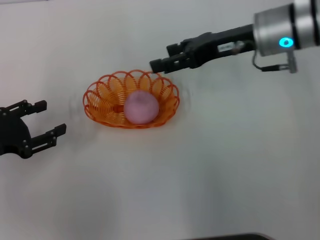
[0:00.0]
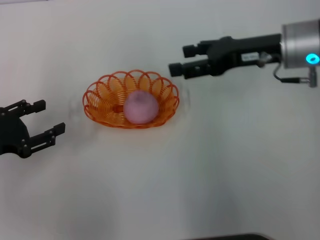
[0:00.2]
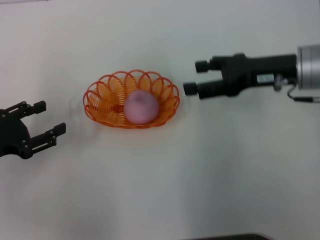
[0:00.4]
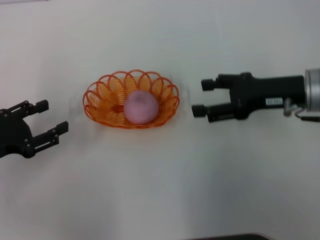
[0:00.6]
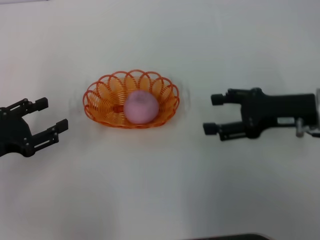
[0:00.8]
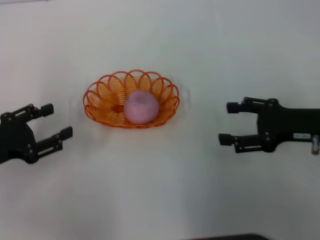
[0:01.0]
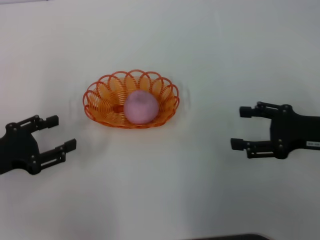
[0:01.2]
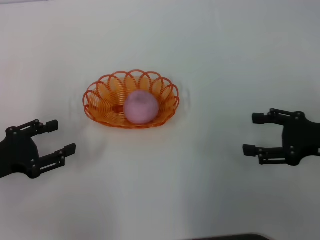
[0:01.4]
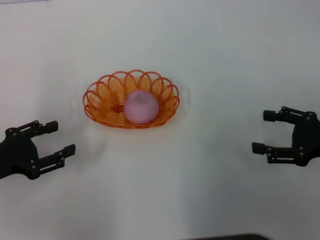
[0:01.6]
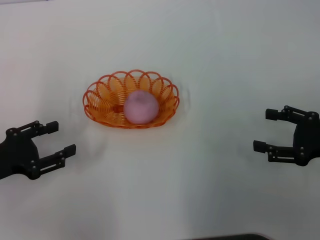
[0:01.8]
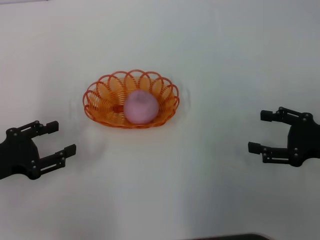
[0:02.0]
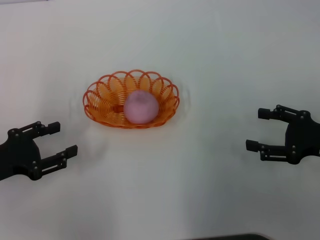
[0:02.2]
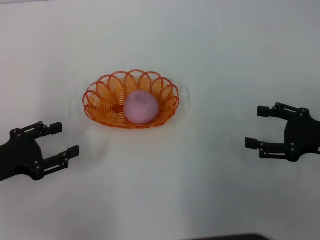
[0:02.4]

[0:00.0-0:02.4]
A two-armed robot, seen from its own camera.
0:00.0 to 0:01.2: The right gripper goes approximately 20 cm backward, to the right and downward.
0:01.2 to 0:02.4: The grippers stay close to where they were, moving slightly.

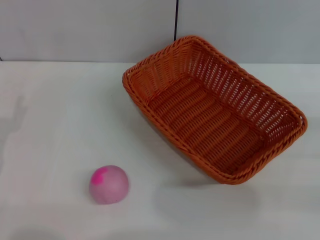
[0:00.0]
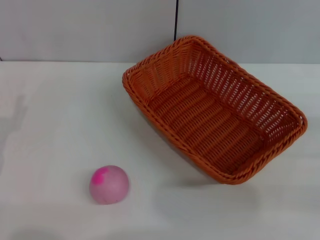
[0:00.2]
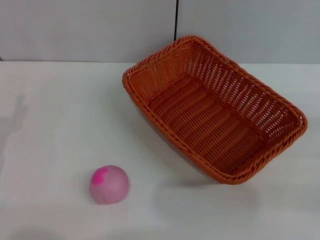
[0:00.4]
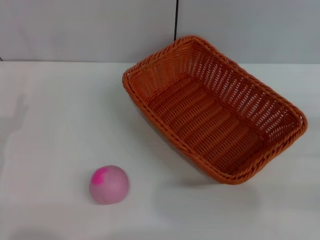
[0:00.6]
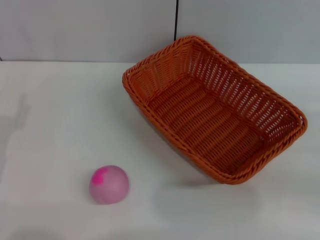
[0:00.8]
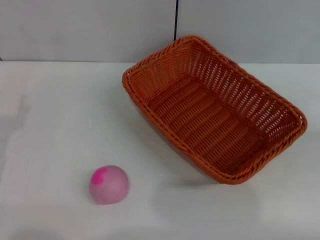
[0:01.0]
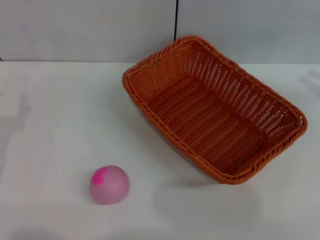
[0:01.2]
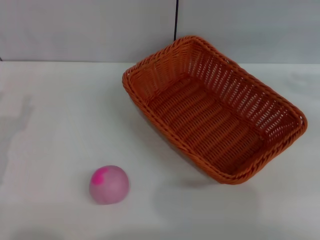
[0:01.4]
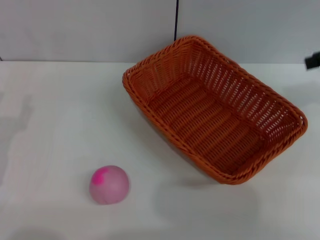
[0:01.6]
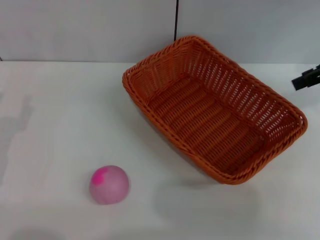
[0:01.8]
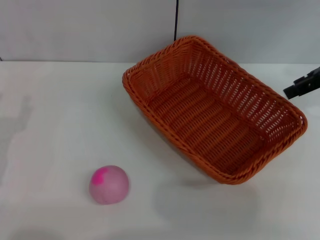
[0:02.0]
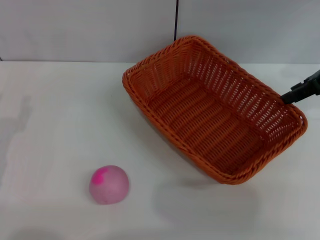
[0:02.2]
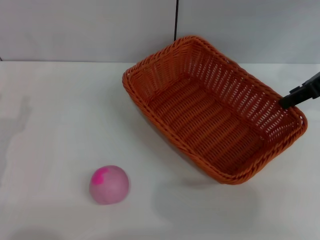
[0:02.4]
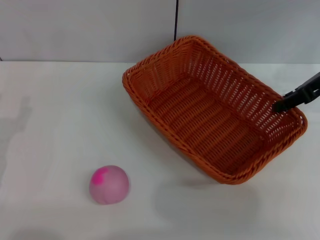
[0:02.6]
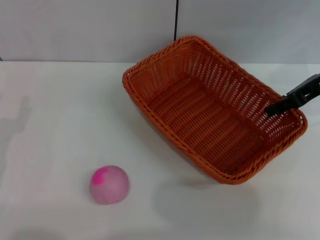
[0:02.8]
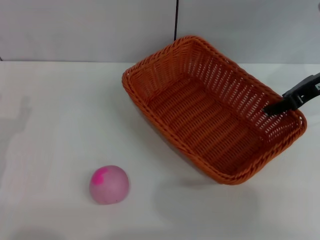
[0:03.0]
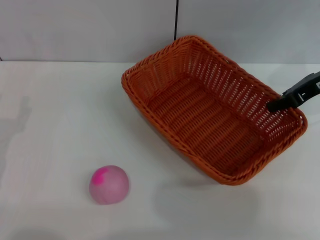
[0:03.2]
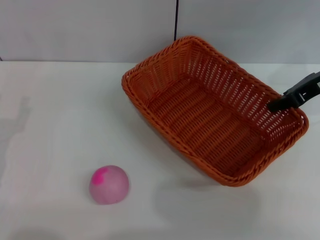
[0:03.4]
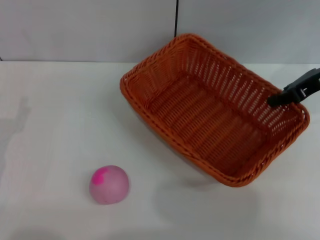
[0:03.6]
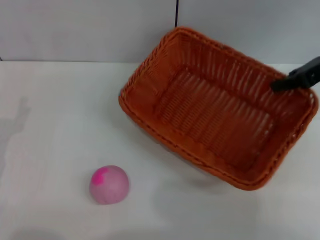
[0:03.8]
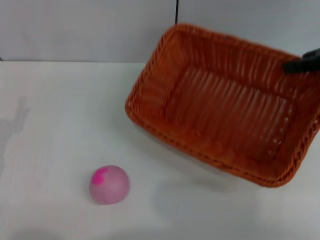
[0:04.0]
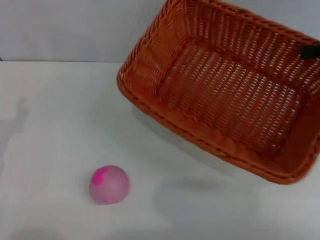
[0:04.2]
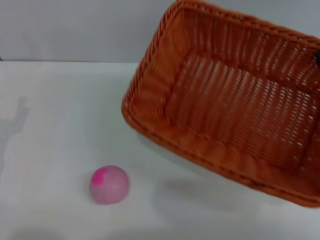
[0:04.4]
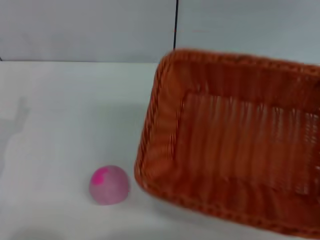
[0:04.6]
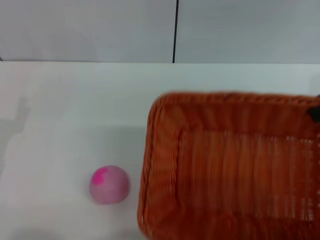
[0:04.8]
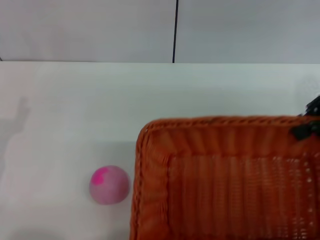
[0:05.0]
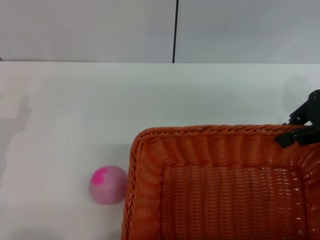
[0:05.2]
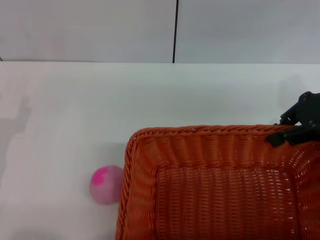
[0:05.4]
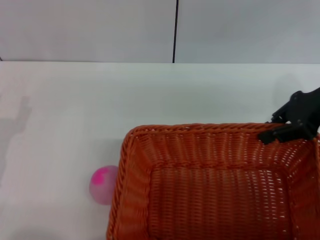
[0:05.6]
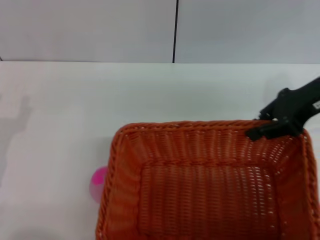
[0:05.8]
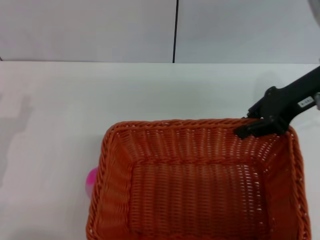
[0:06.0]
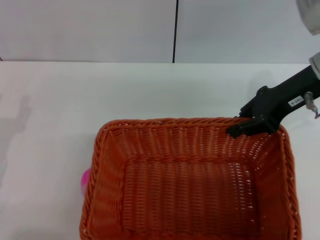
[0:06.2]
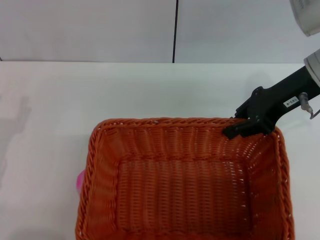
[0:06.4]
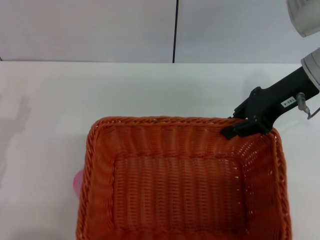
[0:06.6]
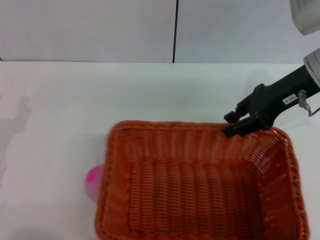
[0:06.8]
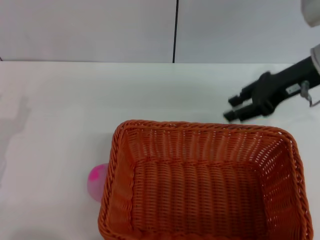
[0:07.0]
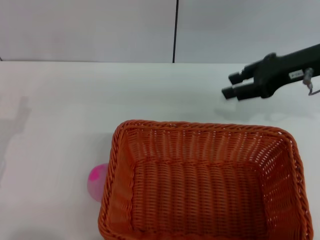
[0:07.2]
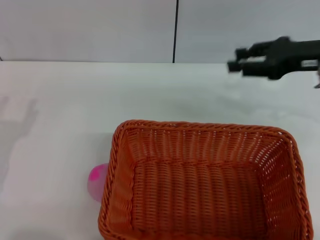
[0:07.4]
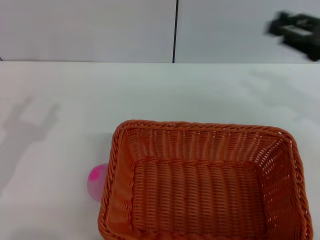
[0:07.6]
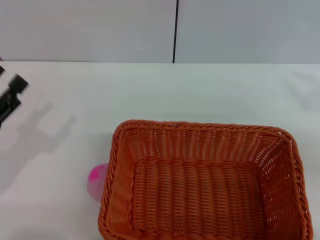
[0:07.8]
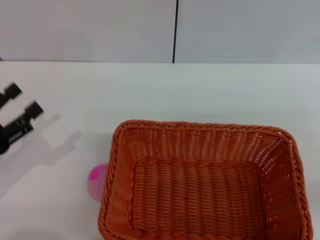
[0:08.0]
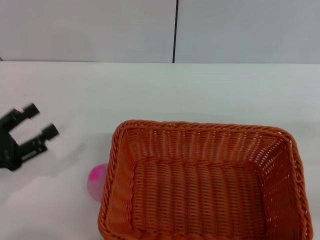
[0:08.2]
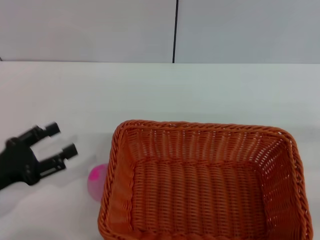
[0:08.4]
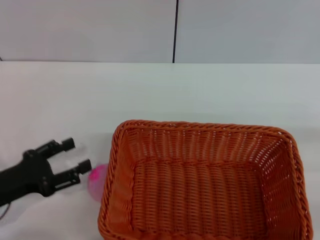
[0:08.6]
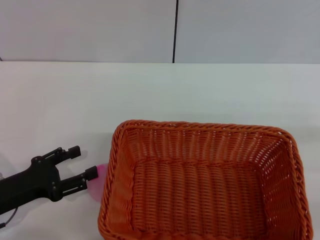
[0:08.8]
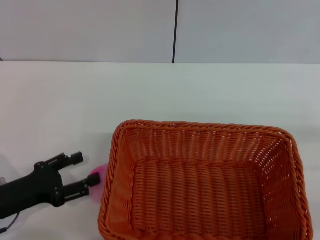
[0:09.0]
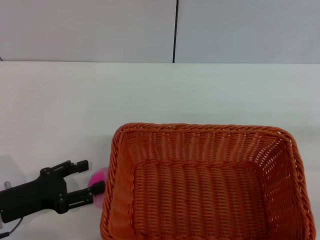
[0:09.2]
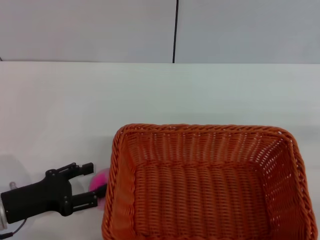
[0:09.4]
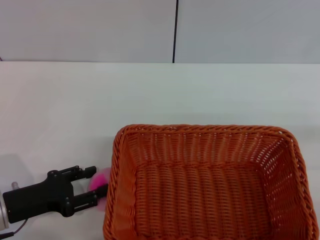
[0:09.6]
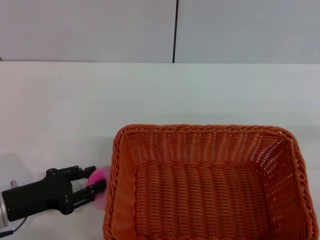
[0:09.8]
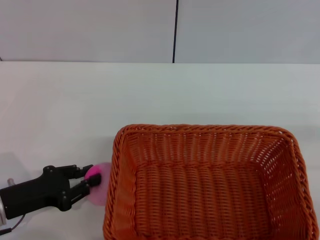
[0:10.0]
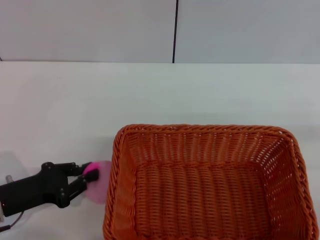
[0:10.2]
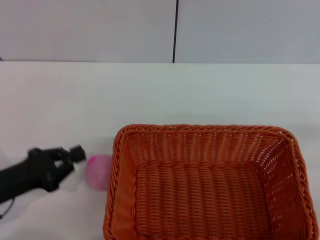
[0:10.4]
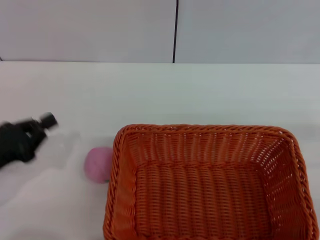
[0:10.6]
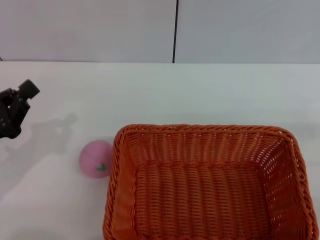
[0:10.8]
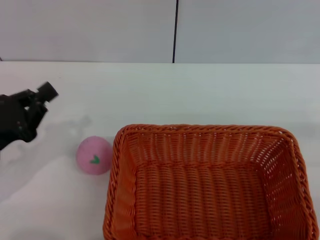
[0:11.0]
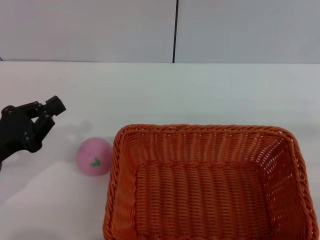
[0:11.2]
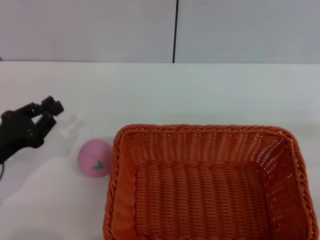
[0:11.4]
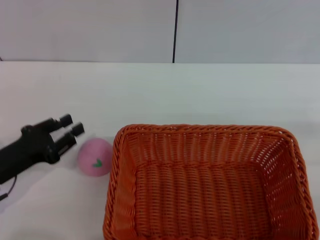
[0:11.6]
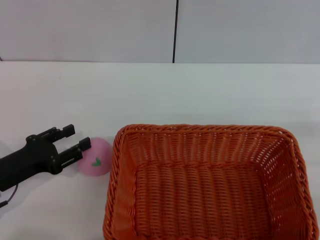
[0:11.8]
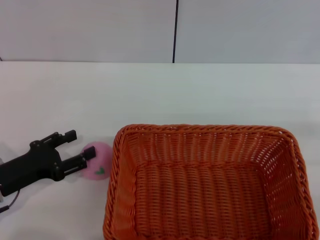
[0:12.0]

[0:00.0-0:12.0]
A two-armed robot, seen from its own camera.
Step, 0:00.0 to 0:04.2: Pick up the light basket with the right gripper.
Step, 0:04.4 to 0:07.0: Place the light basket in the center of view with the right gripper.
0:01.6 to 0:03.0: The right gripper shifts some 10 cm to the left and downward.
0:03.0 to 0:04.4: The right gripper shifts roughly 15 cm upward, to the right and backward, and closes up.
0:04.4 to 0:06.0: The right gripper shifts roughly 15 cm to the left and downward.
0:06.0 to 0:07.6: The right gripper travels to the right by approximately 5 cm, and opens its fingers.
0:07.6 to 0:09.0: The right gripper goes some 15 cm backward, to the right and downward.
0:09.0 to 0:10.4: The left gripper closes.
0:10.4 to 0:12.0: The left gripper opens its fingers.

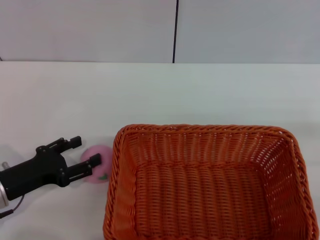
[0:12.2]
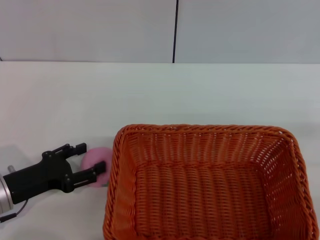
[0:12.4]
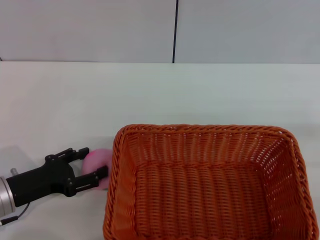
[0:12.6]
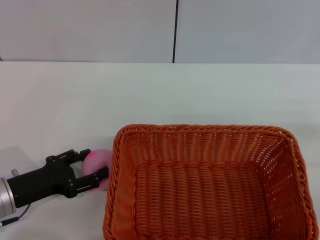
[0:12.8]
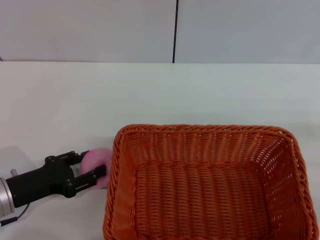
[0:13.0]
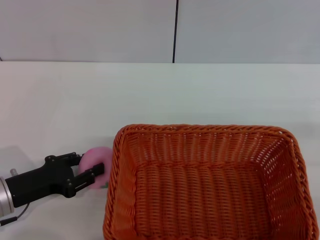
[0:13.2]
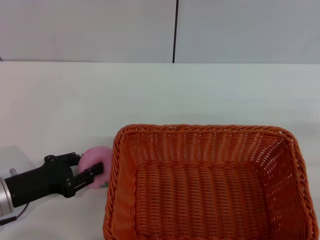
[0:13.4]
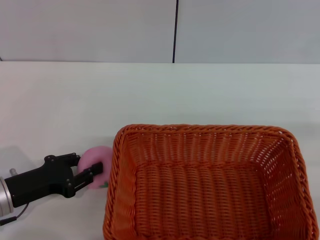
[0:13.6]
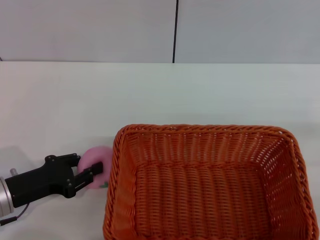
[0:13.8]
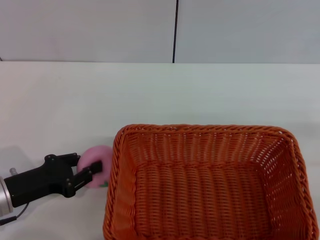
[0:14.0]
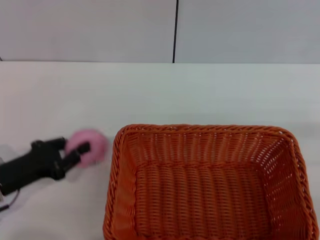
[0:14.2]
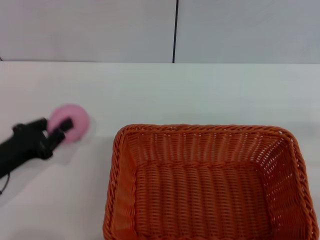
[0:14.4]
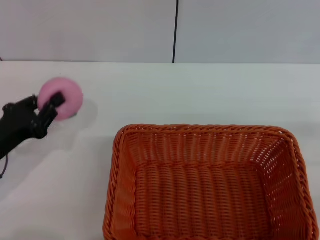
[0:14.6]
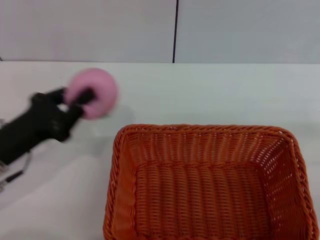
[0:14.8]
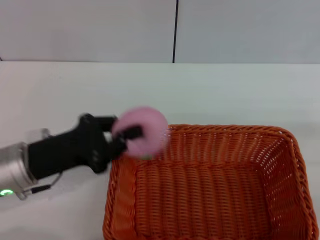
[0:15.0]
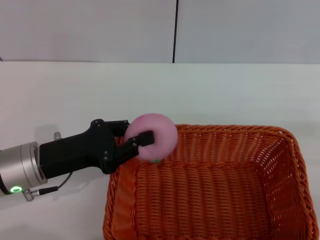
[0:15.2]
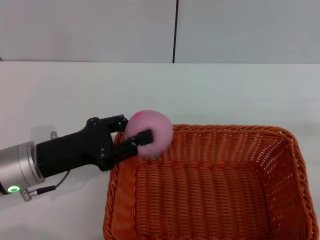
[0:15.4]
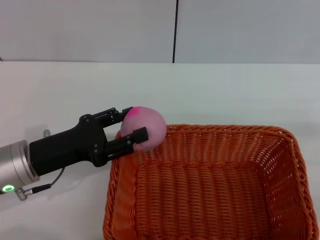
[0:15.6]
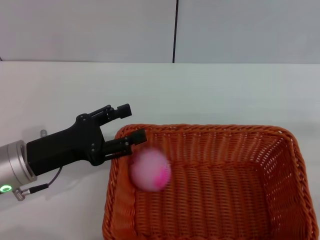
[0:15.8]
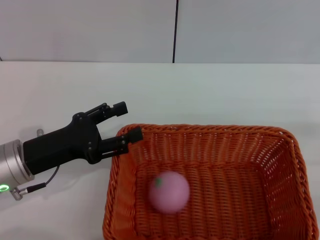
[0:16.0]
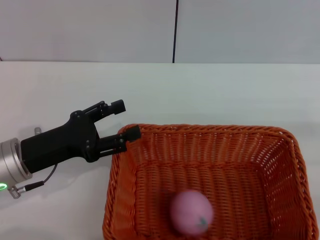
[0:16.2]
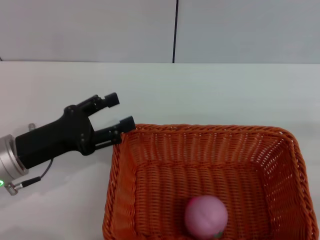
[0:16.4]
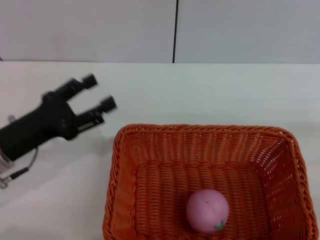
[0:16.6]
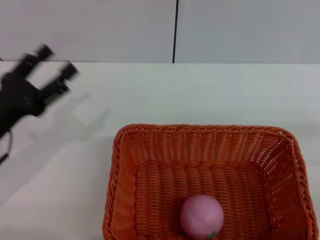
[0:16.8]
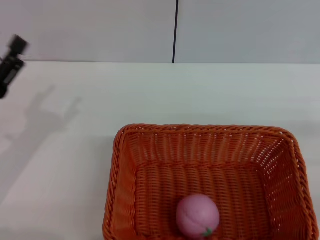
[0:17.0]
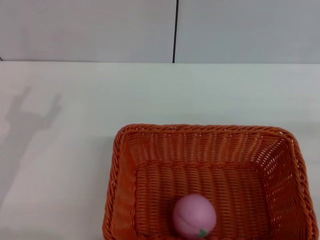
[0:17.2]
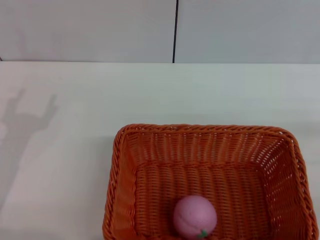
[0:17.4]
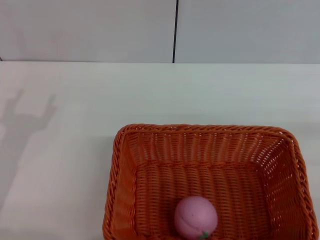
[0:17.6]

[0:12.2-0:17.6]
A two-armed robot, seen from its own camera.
Step, 0:12.2 to 0:14.2: Pick up the peach with the left gripper.
Step, 0:14.6 to 0:16.0: Place the peach into the basket with the left gripper.
0:12.2 to 0:13.6: The left gripper closes its fingers.
0:13.6 to 0:15.0: The left gripper moves upward and to the right, some 10 cm.
0:15.0 to 0:16.2: The left gripper opens.
0:16.2 to 0:17.6: The left gripper shifts by roughly 5 cm.

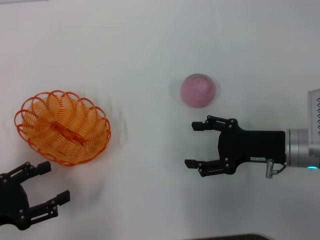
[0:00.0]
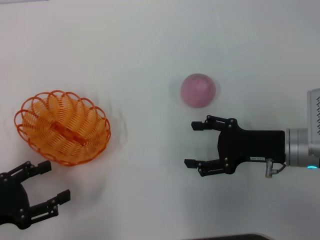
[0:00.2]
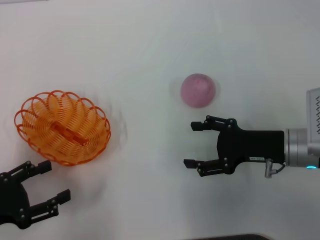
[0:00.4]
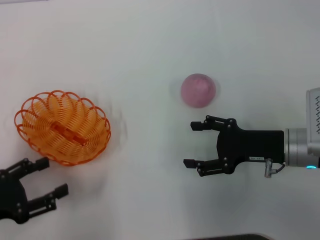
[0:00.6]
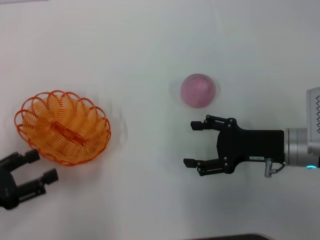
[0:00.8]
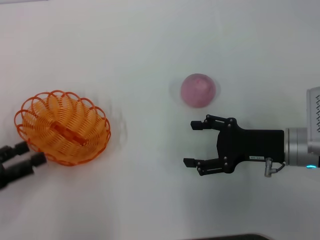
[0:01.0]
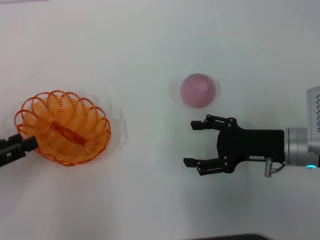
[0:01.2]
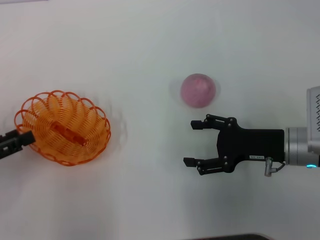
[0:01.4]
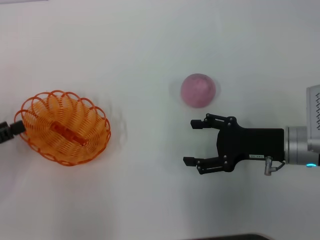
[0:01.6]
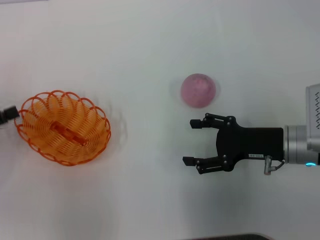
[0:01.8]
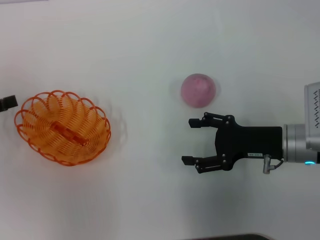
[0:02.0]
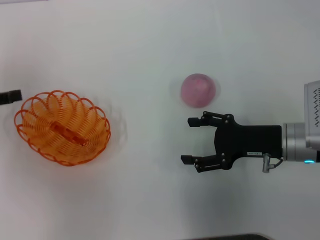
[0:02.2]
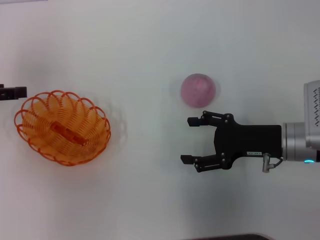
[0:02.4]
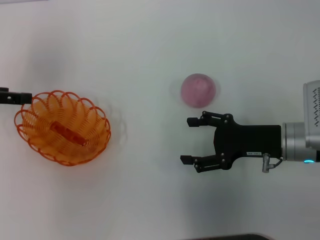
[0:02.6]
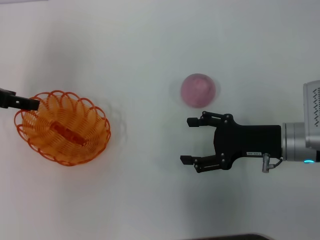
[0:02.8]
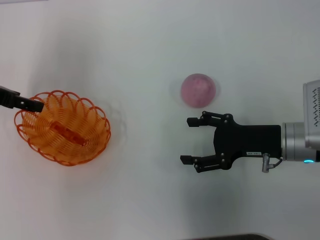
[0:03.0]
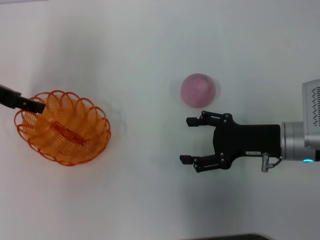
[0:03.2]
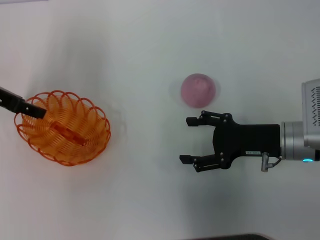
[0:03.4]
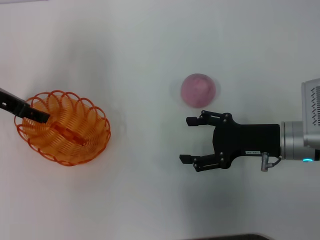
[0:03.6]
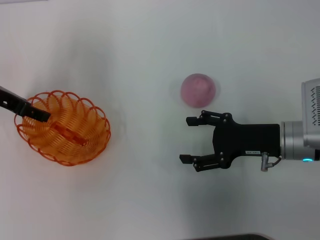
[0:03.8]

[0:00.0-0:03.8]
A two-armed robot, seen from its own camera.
0:00.0 to 0:01.2: The left gripper ends up approximately 5 cm from where it was.
0:01.2 to 0:02.6: The left gripper moves forward and upward, about 15 cm.
0:02.6 to 0:03.8: The left gripper is displaced to the right by roughly 5 cm.
